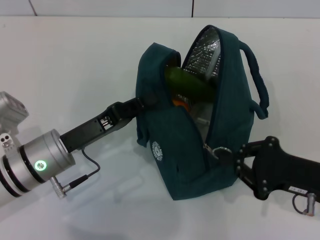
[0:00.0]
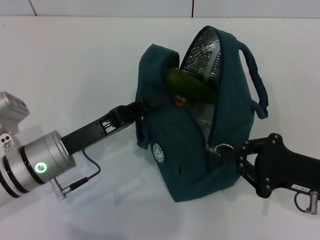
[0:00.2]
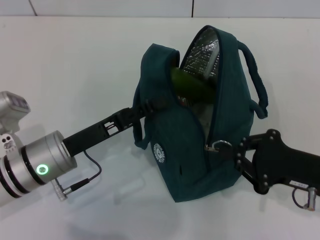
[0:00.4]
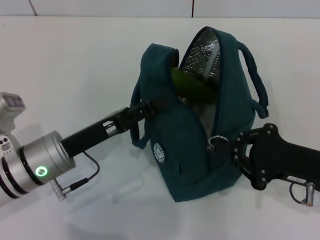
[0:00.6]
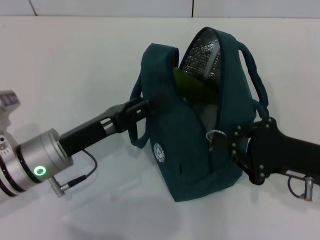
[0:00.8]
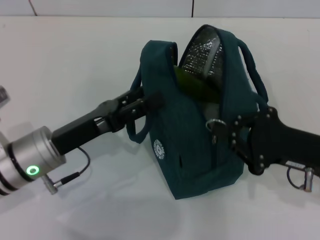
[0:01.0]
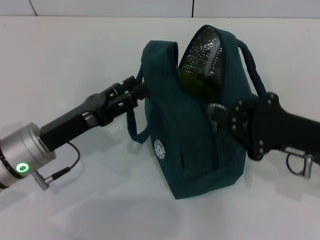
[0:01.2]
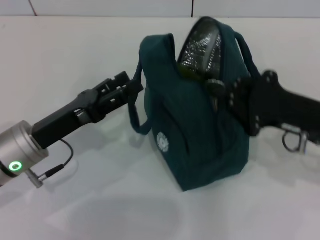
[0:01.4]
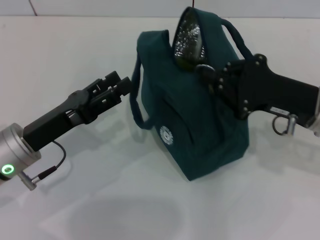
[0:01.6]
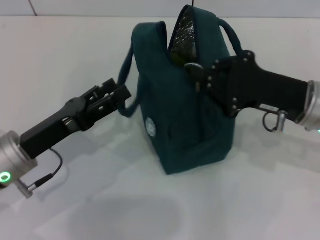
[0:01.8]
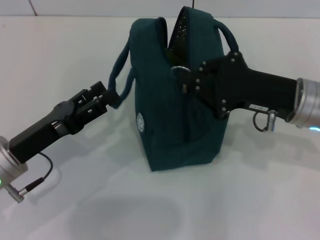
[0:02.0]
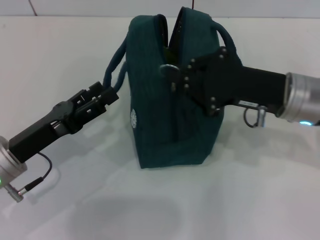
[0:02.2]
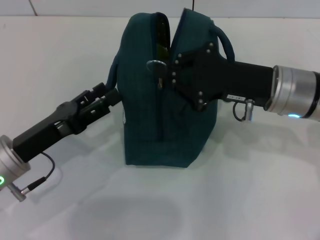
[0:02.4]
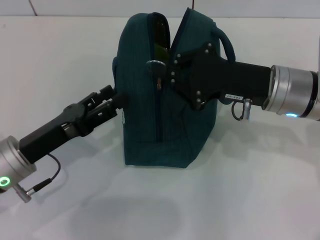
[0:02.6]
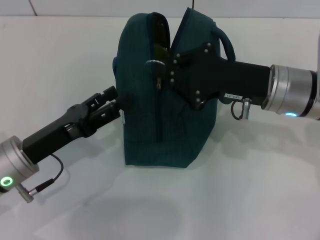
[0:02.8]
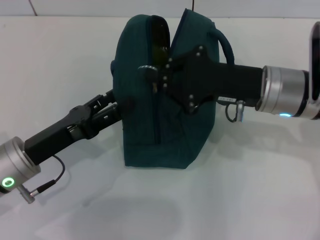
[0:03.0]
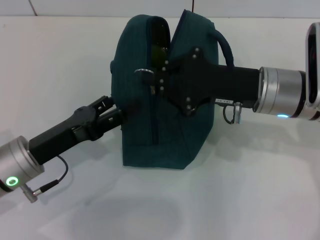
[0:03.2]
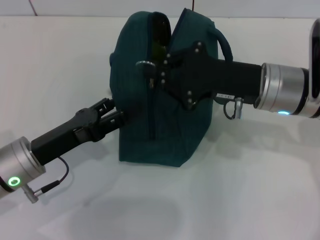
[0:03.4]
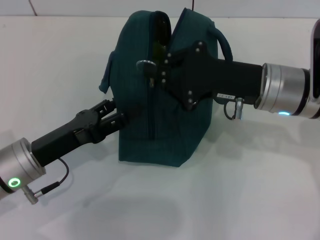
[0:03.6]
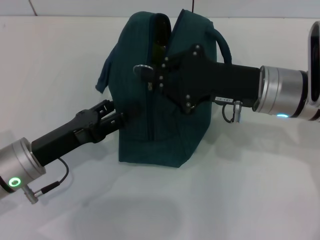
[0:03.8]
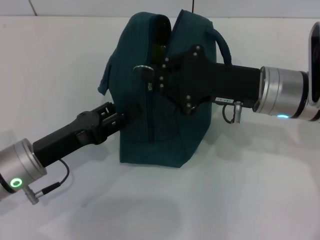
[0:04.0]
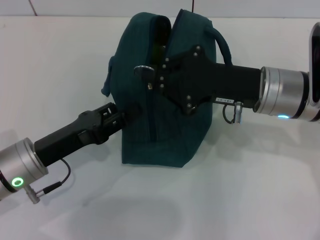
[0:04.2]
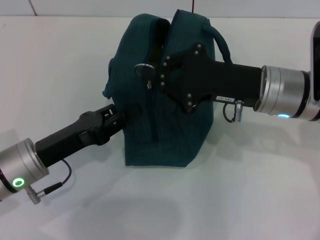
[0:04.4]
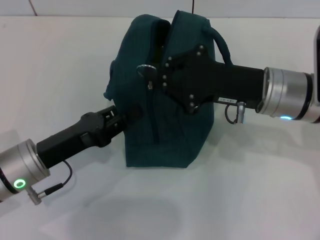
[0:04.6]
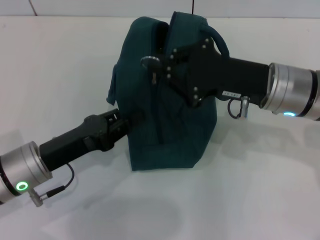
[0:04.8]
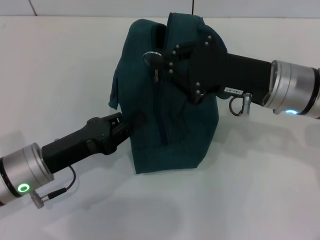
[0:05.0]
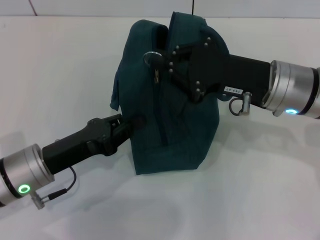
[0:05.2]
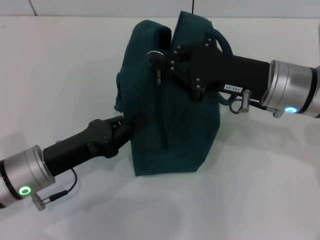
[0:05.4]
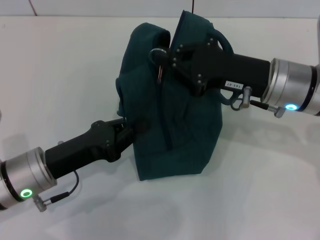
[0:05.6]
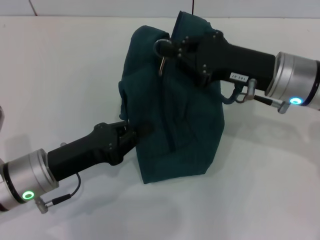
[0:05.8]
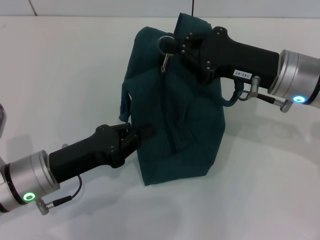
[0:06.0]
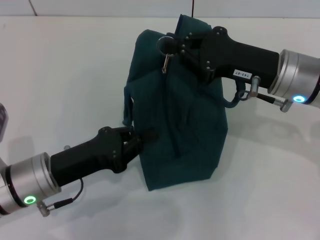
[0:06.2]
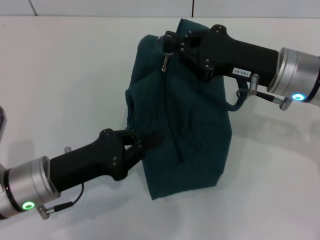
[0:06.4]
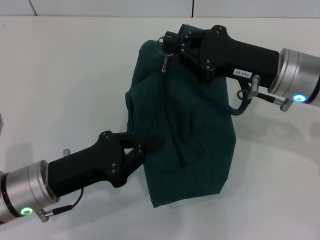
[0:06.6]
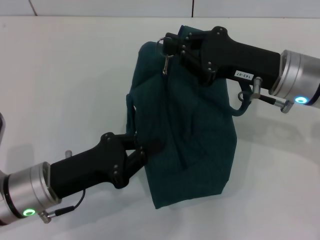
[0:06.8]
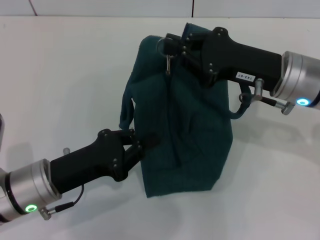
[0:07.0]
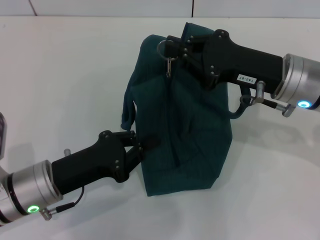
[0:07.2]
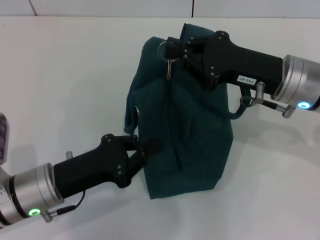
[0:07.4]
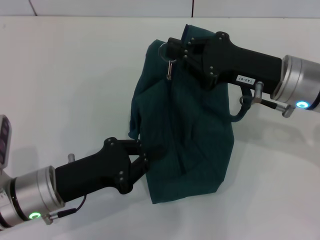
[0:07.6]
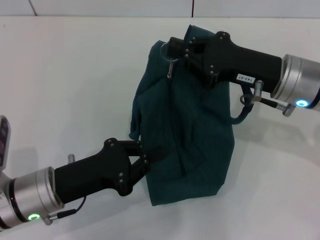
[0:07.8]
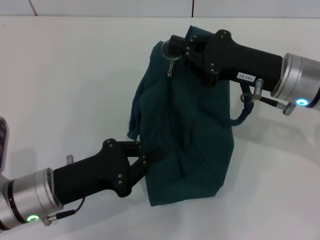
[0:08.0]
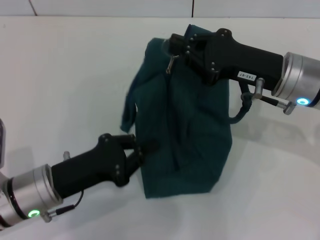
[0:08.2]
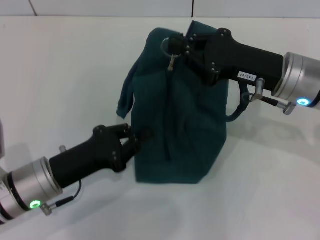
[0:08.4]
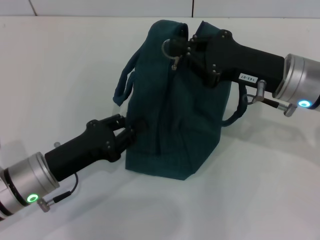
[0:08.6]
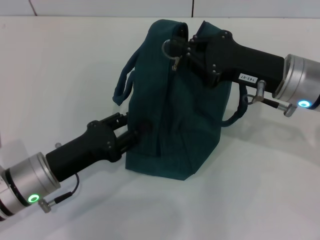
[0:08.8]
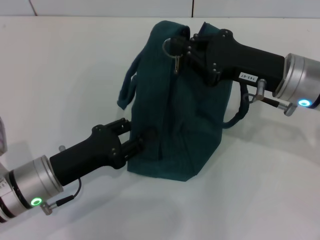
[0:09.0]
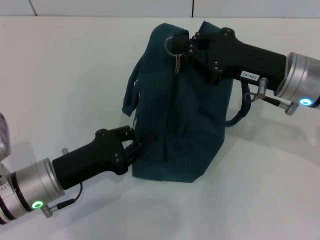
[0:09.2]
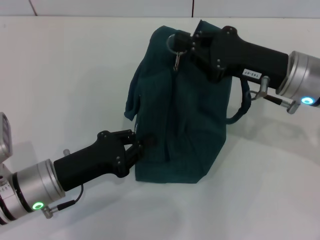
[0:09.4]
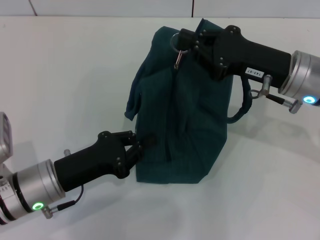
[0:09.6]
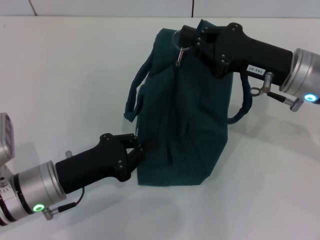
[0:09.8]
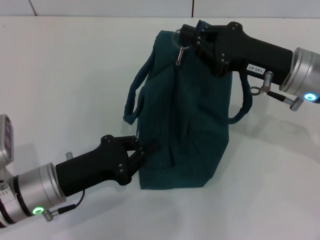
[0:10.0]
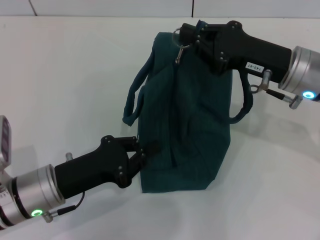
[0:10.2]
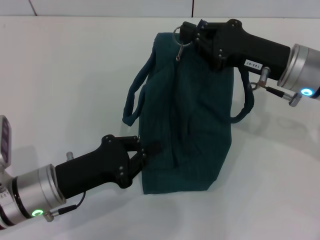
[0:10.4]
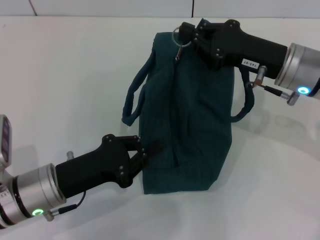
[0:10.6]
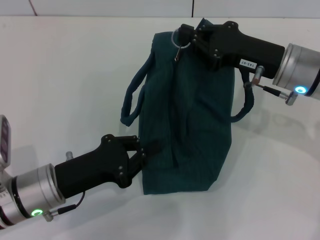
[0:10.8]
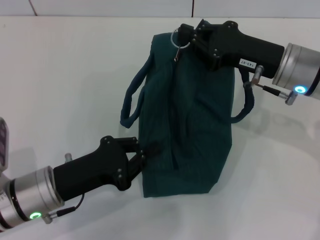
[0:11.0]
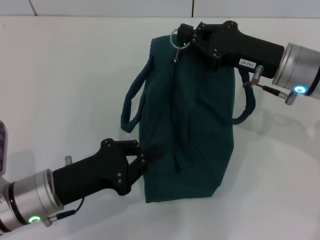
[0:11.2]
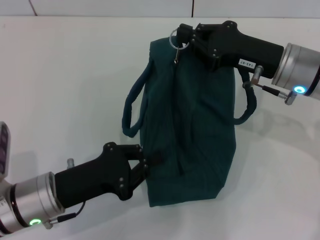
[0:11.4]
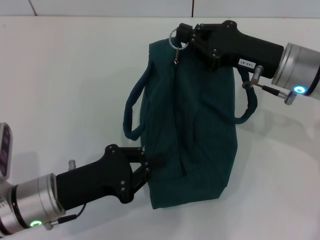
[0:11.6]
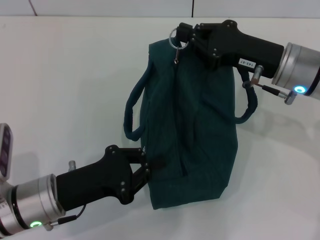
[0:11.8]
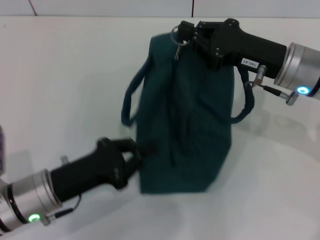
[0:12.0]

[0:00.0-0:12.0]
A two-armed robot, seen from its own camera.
0:00.0 to 0:01.6: The left gripper opens up. The right gripper is displaced forward and upward by about 10 cm.
0:01.6 to 0:03.0: The right gripper is displaced to the left by some 5 cm.
0:03.0 to 0:04.4: The left gripper closes.
0:04.4 to 0:06.0: The left gripper closes.
0:07.6 to 0:09.0: The left gripper opens its fingers.
0:09.0 to 0:10.4: The left gripper closes.
0:10.4 to 0:12.0: Both grippers stay put.

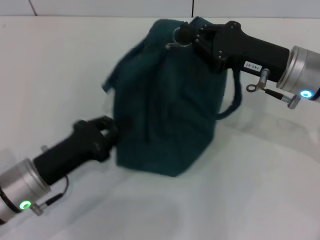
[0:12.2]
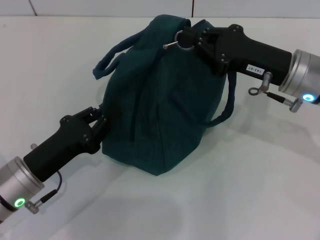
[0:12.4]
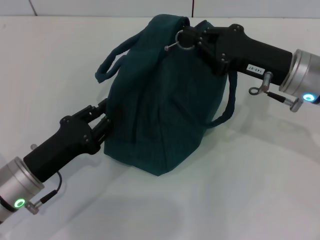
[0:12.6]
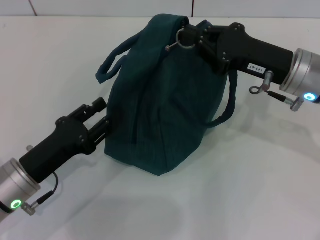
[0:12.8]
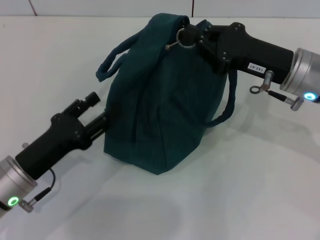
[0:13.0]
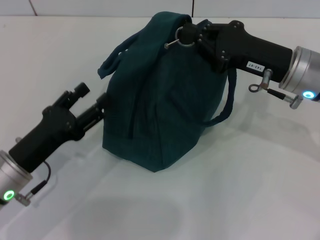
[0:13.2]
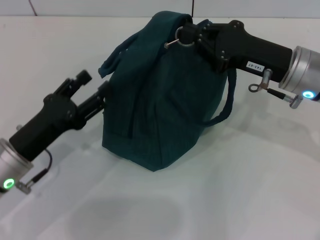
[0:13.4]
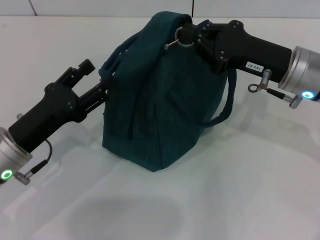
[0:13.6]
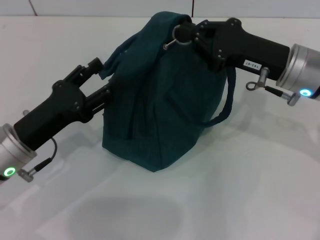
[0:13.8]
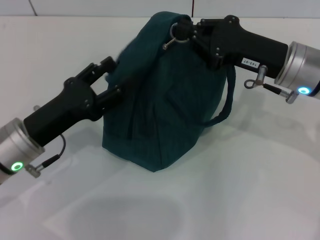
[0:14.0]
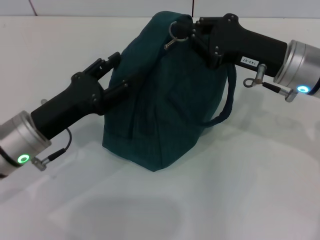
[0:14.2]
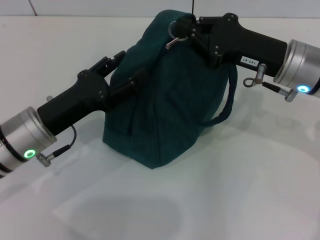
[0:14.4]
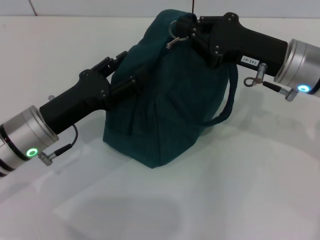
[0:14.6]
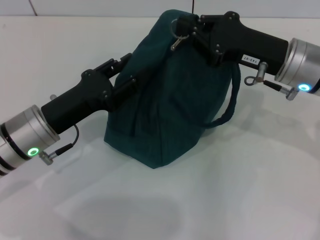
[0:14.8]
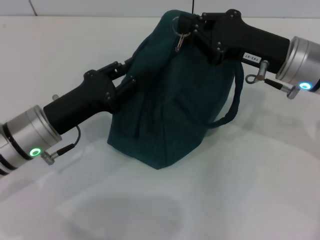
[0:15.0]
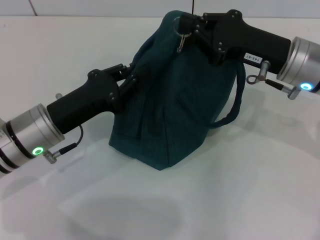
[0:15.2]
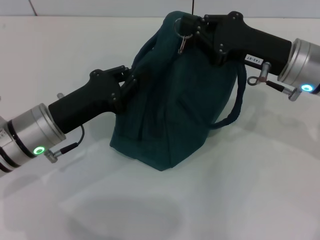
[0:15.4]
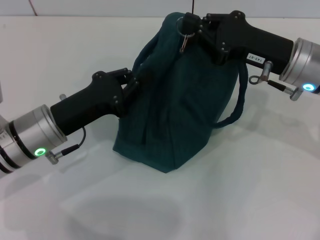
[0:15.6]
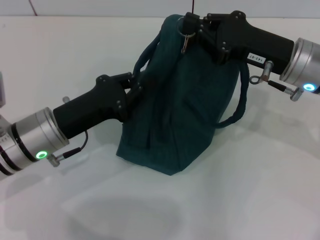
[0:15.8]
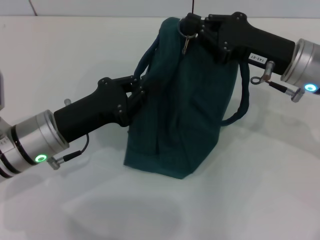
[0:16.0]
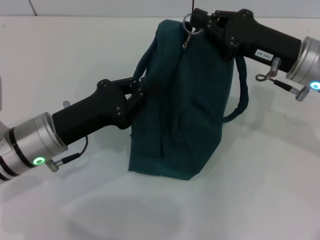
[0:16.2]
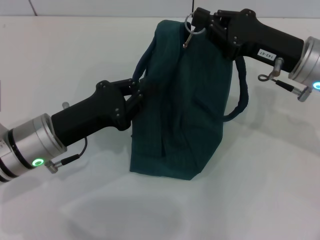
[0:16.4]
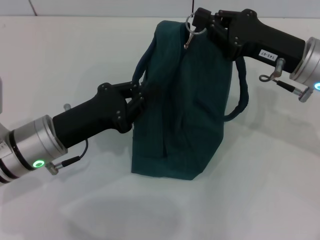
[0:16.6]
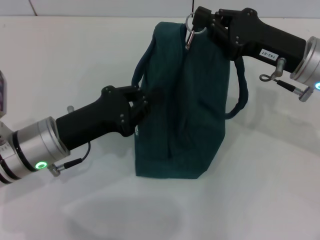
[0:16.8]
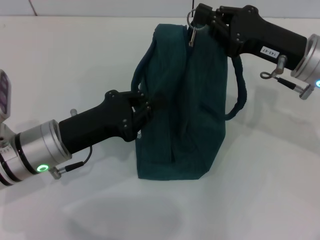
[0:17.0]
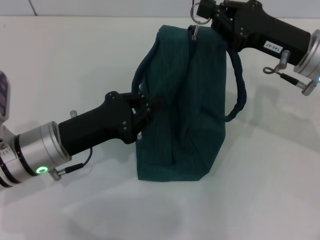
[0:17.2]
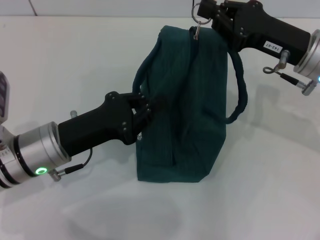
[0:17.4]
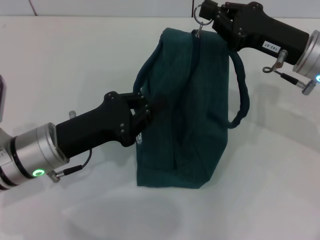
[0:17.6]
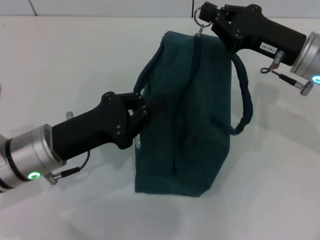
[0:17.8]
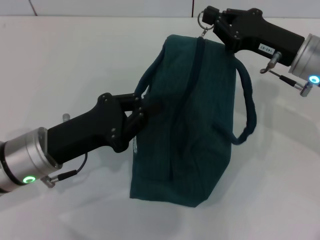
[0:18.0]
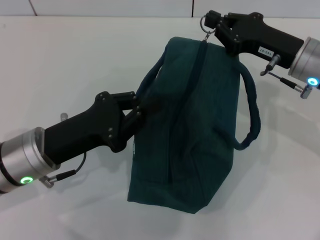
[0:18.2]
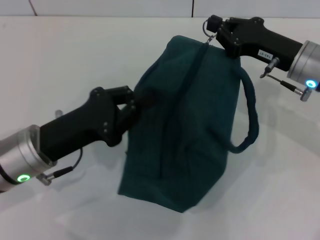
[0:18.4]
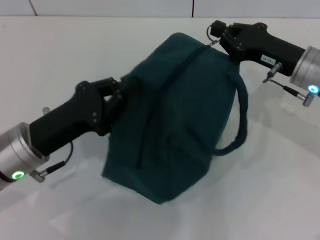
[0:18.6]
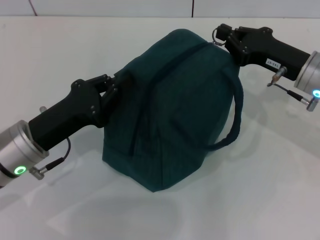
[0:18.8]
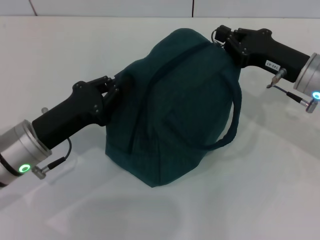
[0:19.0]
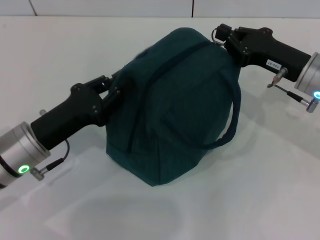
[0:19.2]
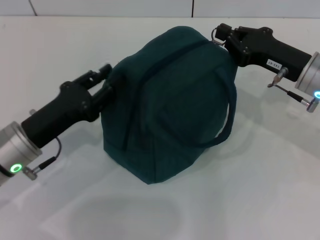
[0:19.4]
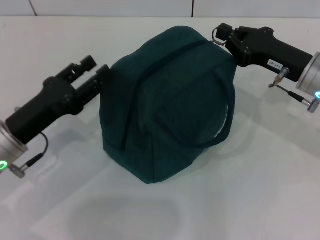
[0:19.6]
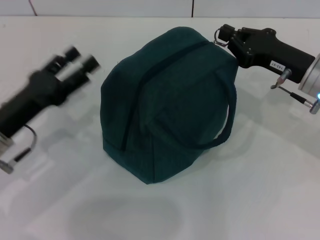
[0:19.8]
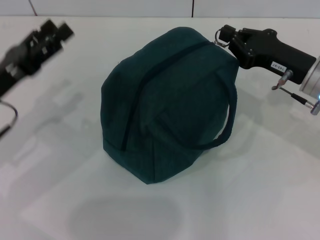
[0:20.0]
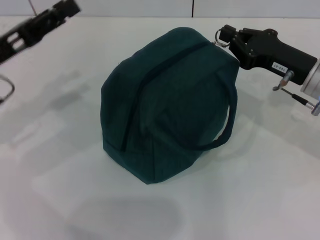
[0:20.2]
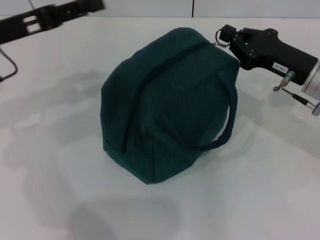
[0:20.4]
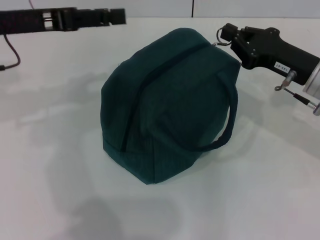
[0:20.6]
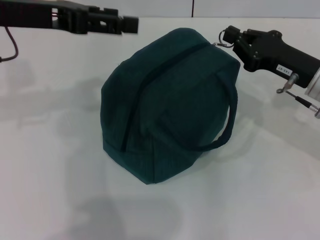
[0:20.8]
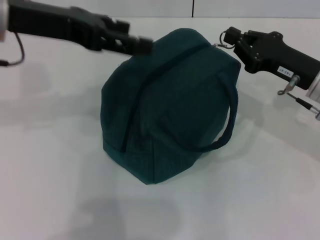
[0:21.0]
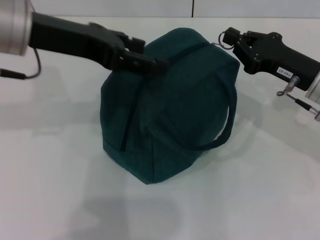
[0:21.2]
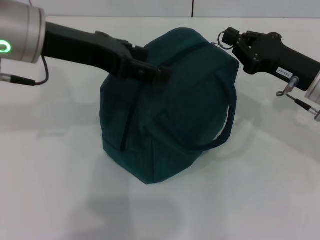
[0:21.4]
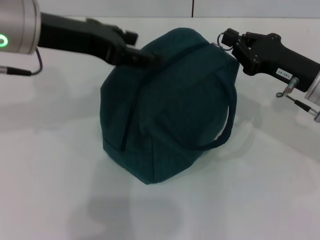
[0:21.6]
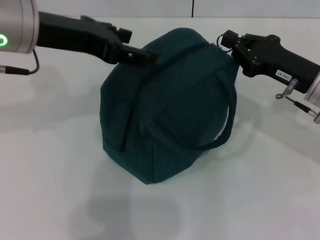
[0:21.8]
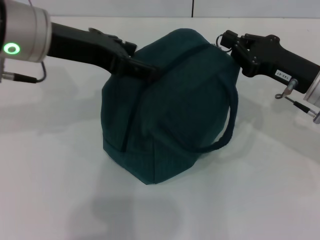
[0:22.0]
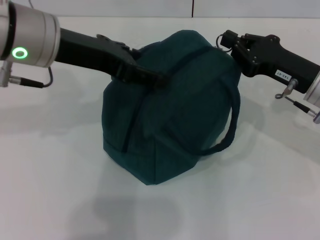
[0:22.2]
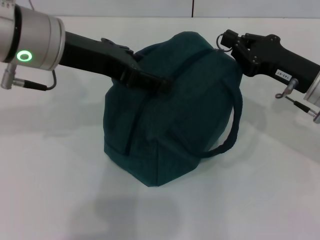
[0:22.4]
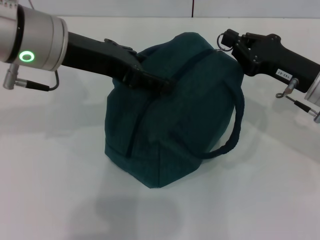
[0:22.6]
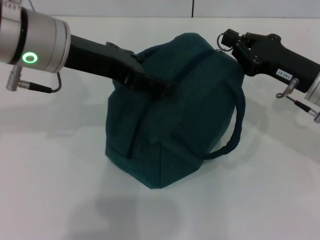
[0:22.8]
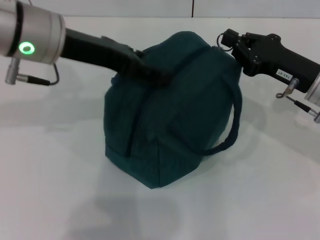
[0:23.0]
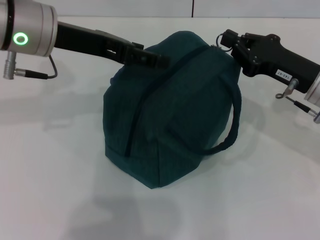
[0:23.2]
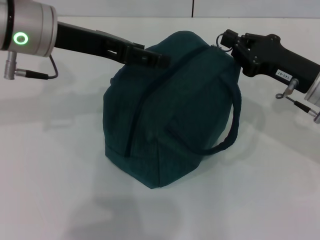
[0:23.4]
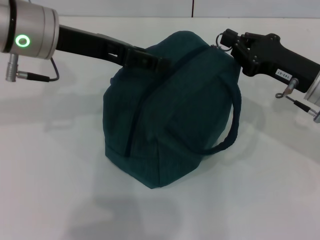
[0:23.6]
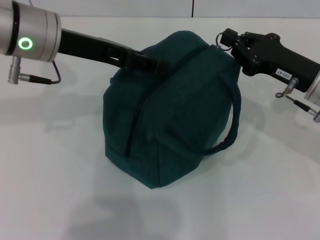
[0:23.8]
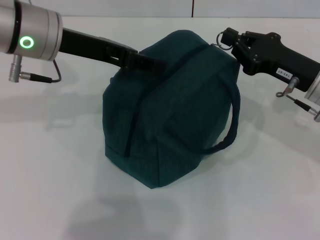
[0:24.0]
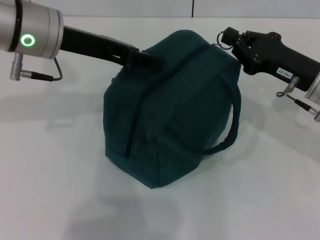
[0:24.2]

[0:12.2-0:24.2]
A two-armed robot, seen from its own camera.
0:12.2 to 0:13.8: The left gripper opens up.
0:13.8 to 0:15.2: The left gripper closes up.
0:15.2 to 0:16.6: The grippers move only a little.
0:18.2 to 0:19.8: The left gripper goes approximately 5 cm to the left, and opens up.
0:19.8 to 0:21.2: The left gripper is displaced upward by about 20 cm.
0:21.2 to 0:22.6: There are only small adjustments of the grippers.
0:22.6 to 0:24.2: The left gripper closes.
